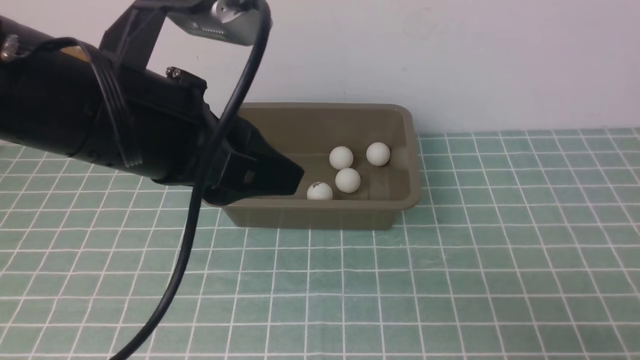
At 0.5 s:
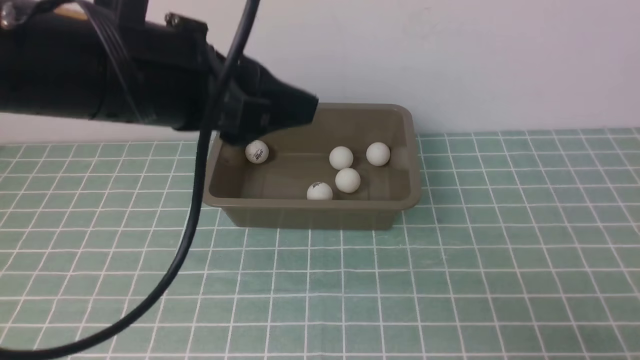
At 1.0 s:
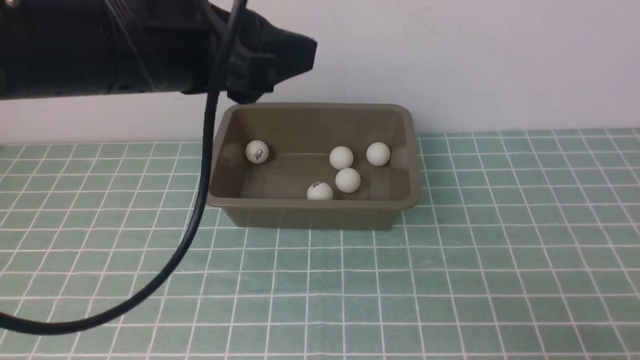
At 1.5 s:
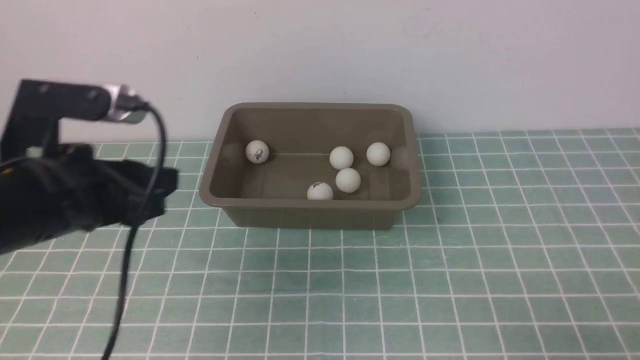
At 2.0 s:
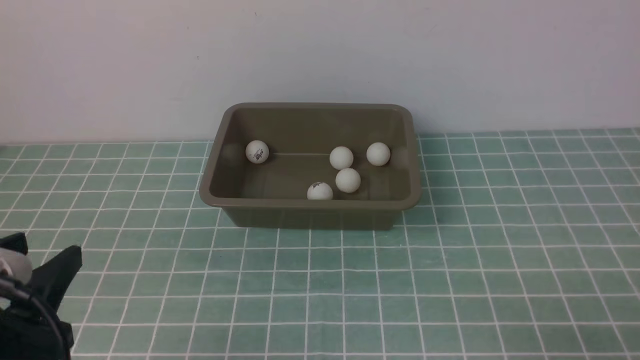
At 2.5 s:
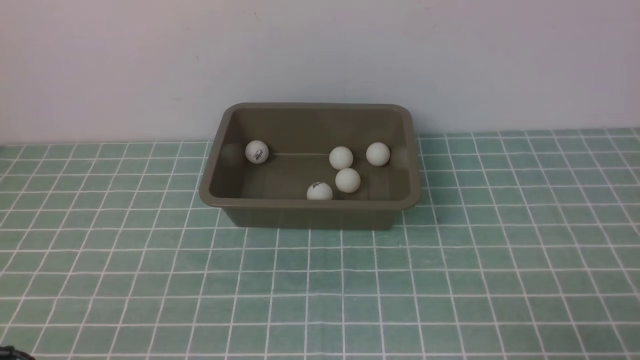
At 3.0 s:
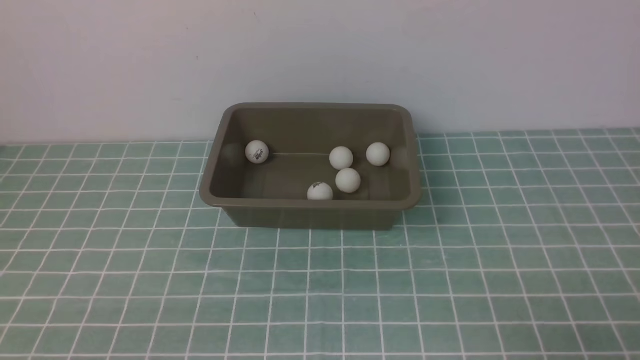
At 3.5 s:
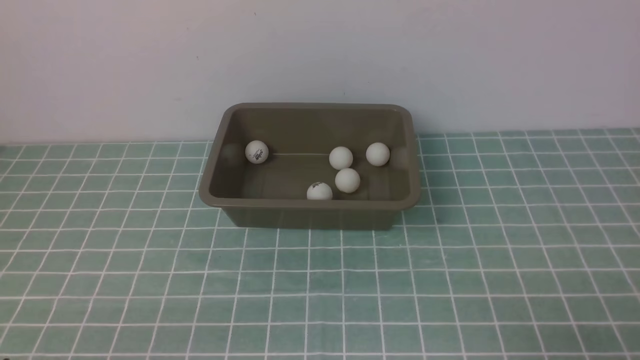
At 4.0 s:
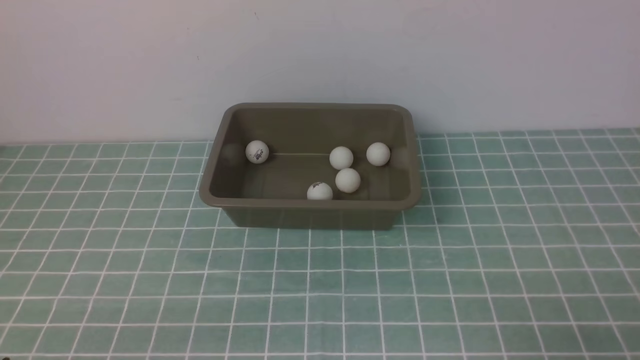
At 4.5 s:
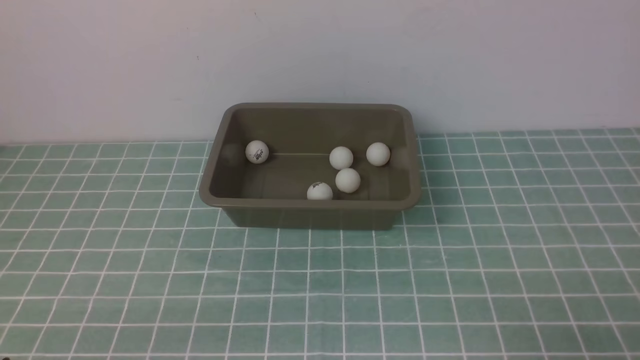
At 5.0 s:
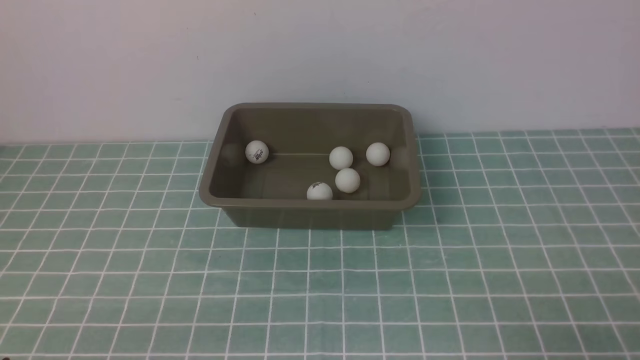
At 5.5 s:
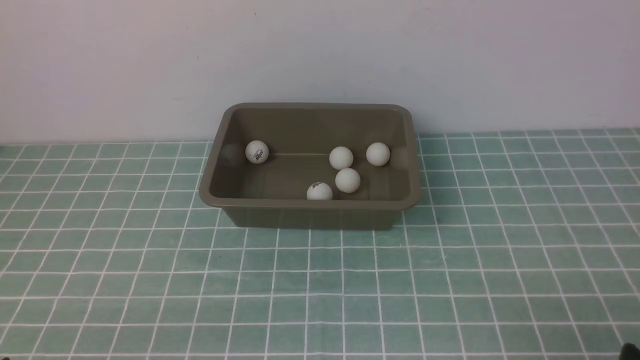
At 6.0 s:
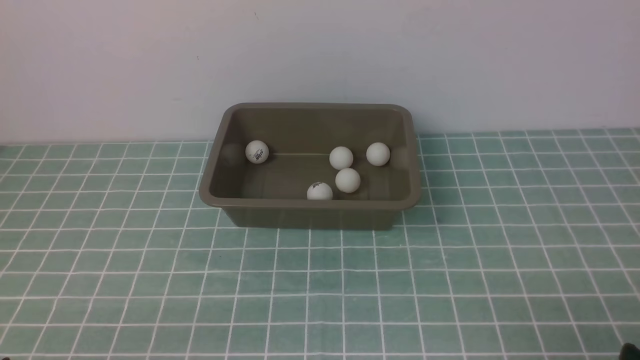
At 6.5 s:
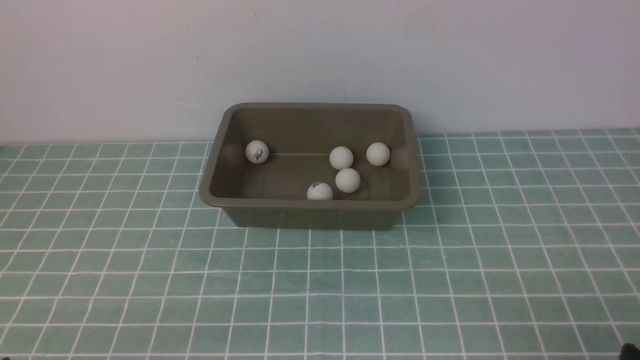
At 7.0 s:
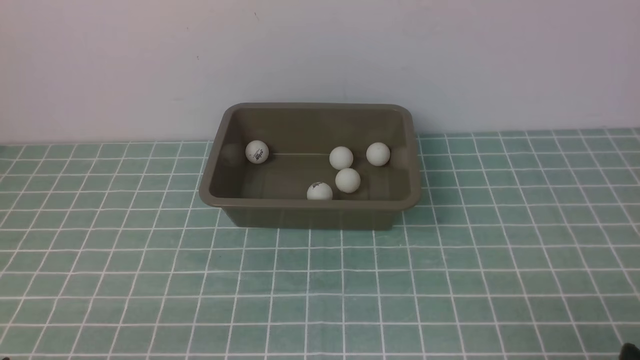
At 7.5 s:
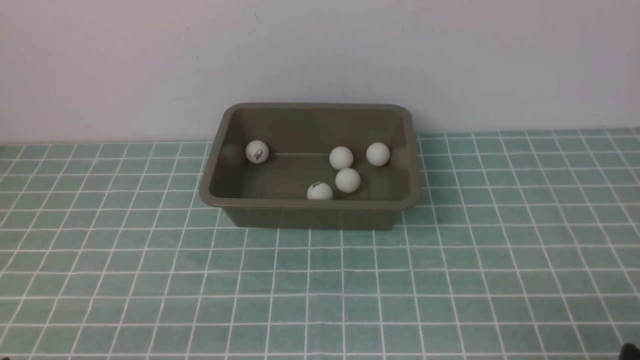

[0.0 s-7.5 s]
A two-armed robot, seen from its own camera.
0.0 to 2.0 s: The left gripper goes some 20 cm to the left, downward and backward.
2.0 to 4.0 s: The left gripper is displaced downward and backward by about 10 cm.
5.5 to 7.5 s: Both grippers stay about where they are.

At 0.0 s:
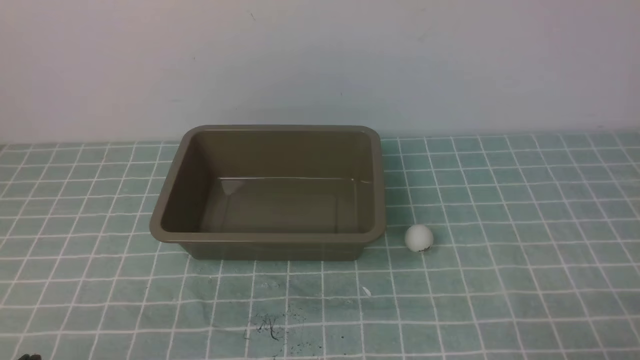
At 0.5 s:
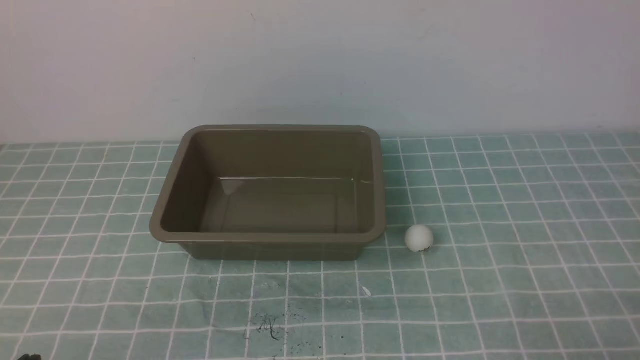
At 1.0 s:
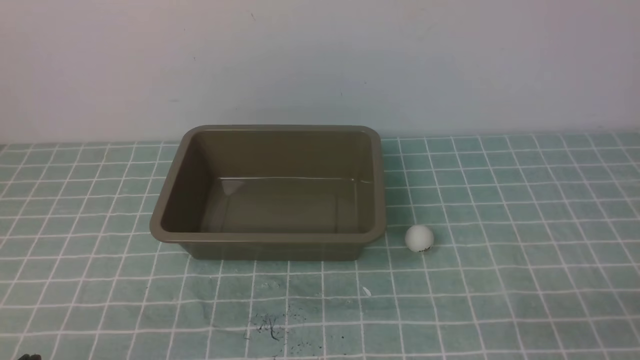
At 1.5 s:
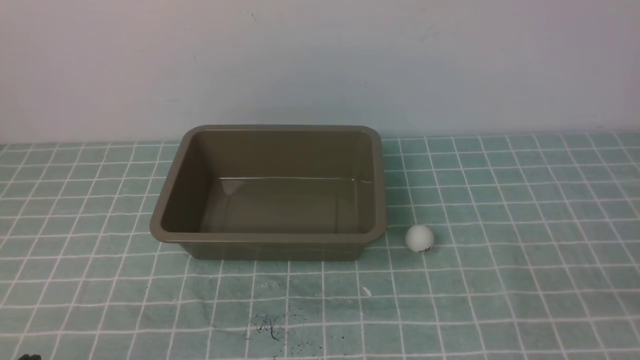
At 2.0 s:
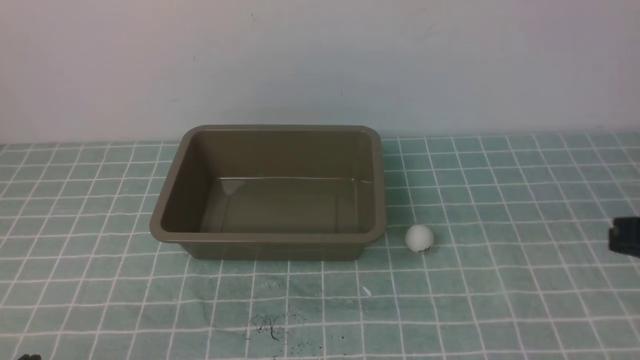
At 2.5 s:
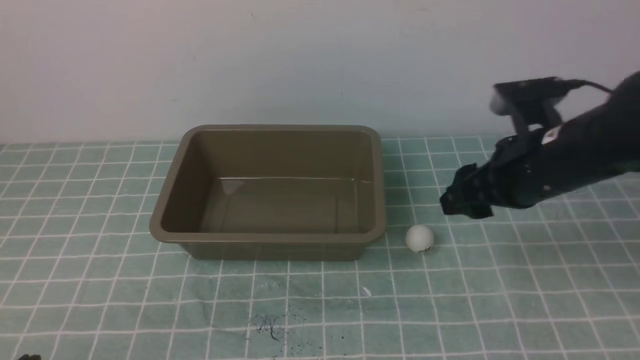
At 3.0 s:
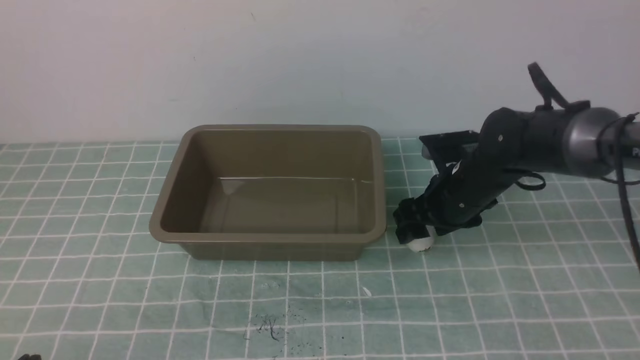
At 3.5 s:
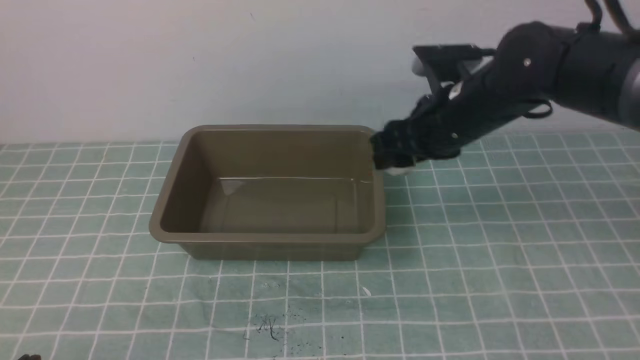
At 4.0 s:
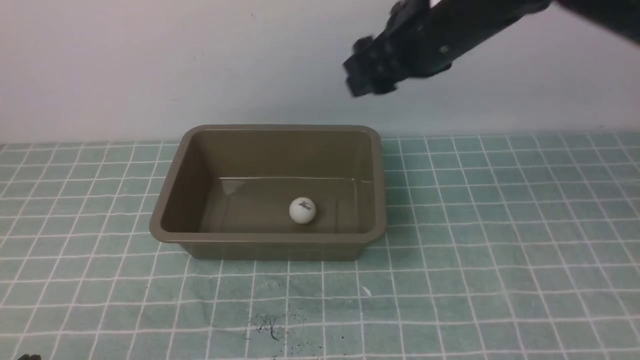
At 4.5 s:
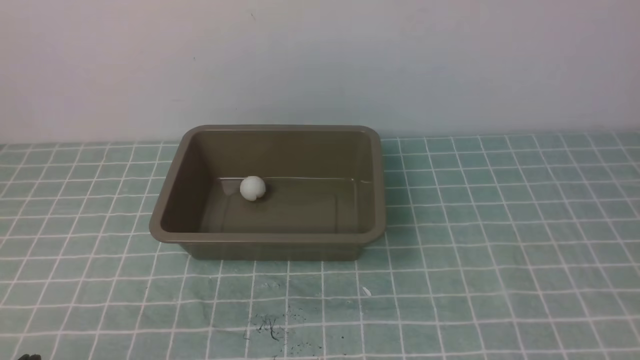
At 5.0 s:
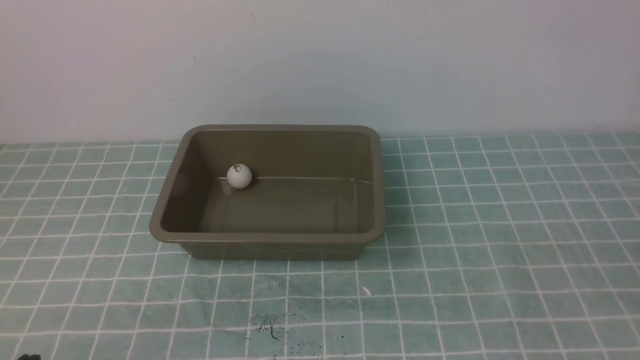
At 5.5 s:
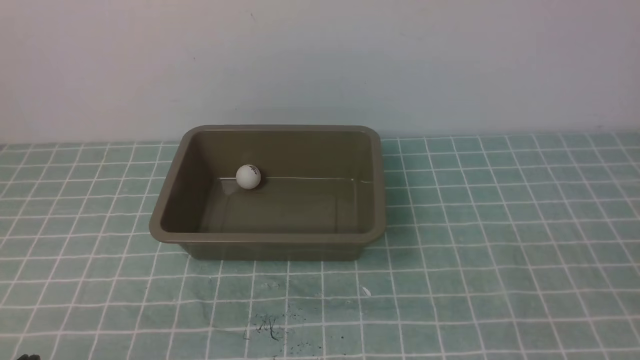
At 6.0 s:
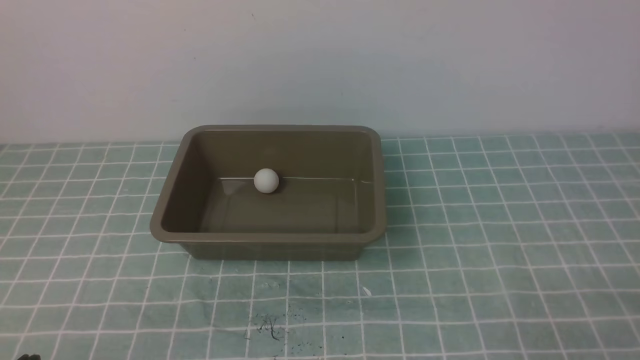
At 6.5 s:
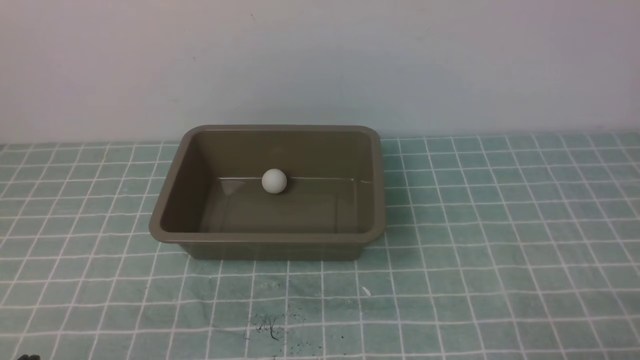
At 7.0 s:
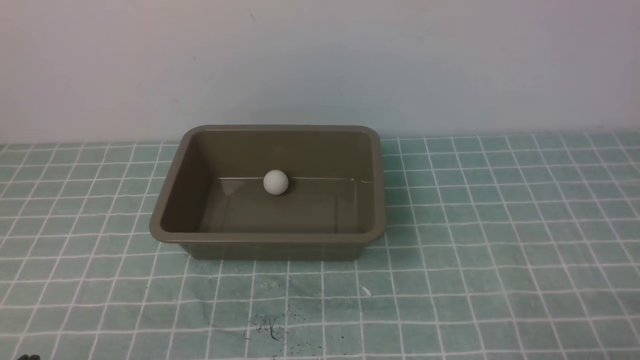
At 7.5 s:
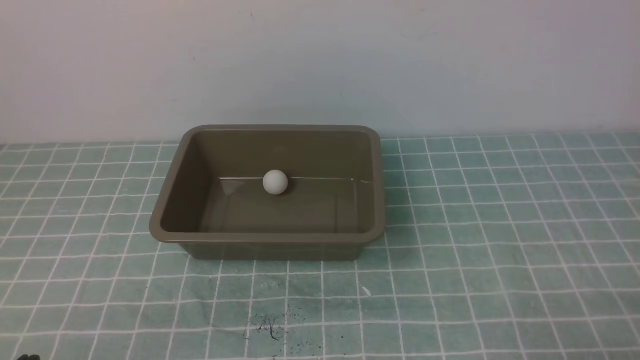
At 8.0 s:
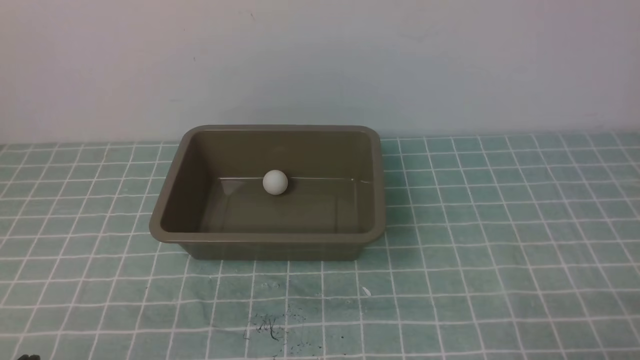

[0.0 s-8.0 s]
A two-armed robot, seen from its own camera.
Step, 0.0 to 3.0 s: use the right arm to clamp the table tennis ball closest to it.
2.0 to 4.0 s: The right gripper is displaced forward and to the left by approximately 30 cm, and opens up.
4.0 to 6.0 s: The right gripper goes roughly 40 cm backward, to the right and downward, and closes up.
